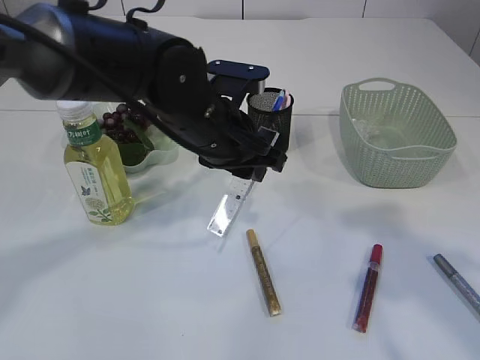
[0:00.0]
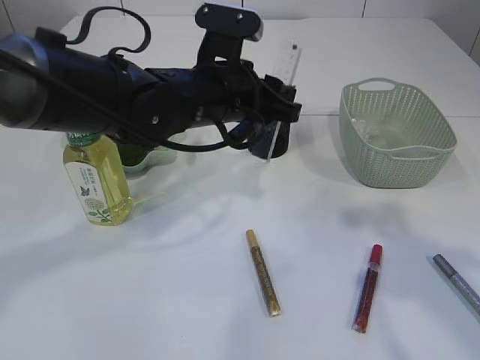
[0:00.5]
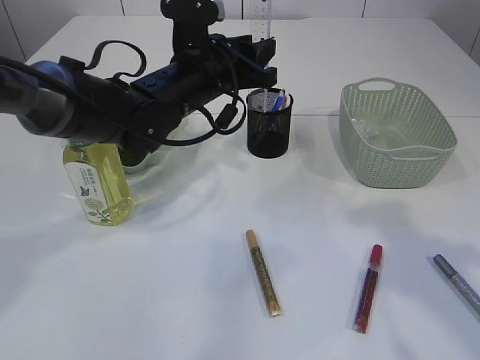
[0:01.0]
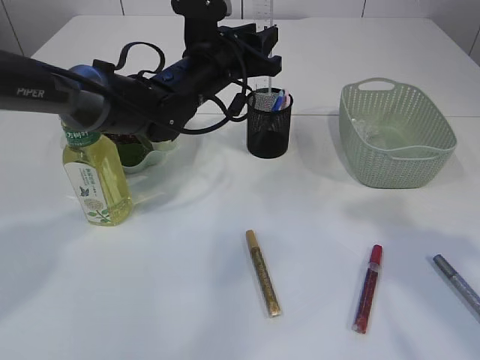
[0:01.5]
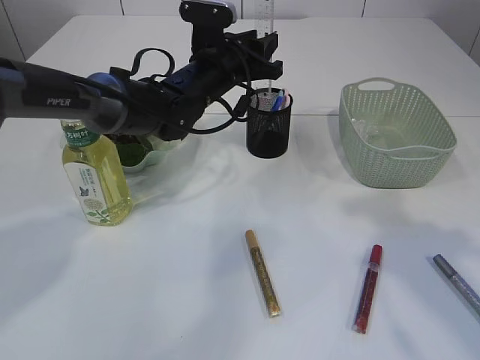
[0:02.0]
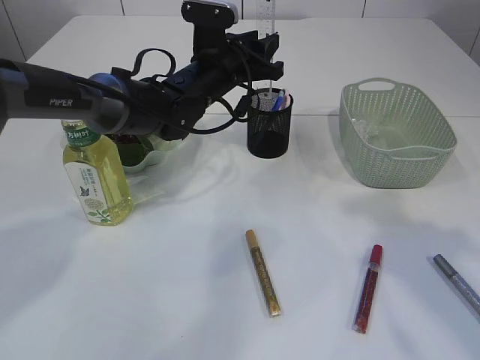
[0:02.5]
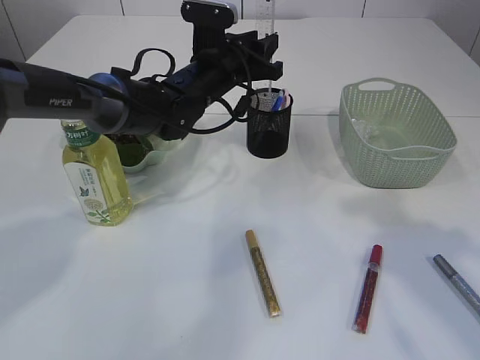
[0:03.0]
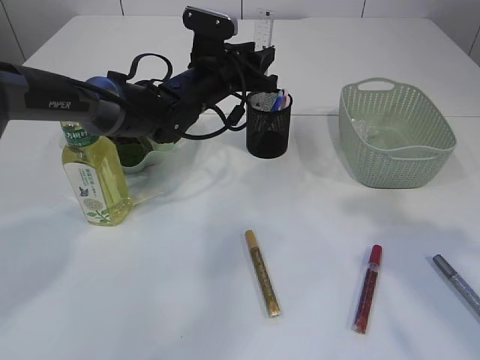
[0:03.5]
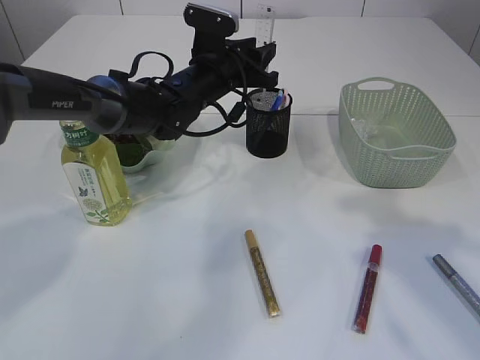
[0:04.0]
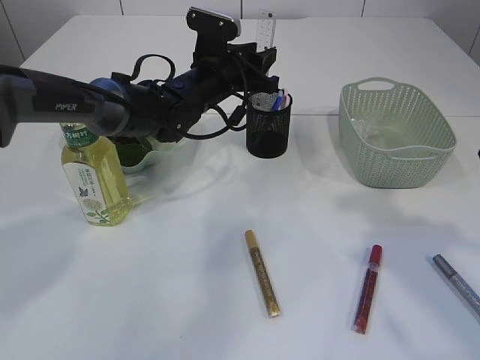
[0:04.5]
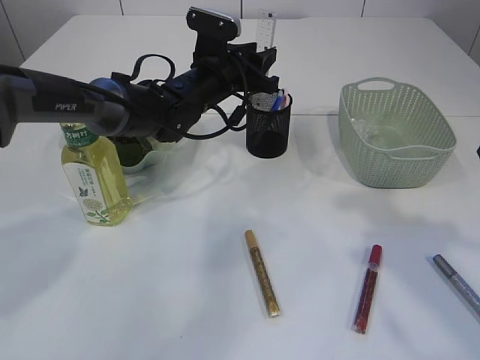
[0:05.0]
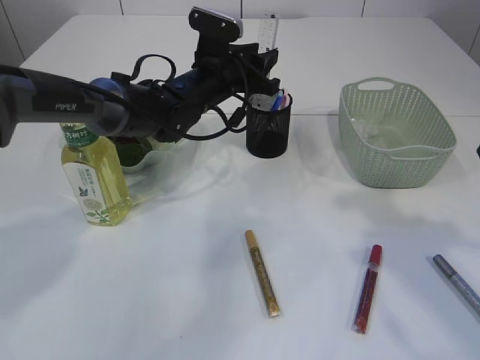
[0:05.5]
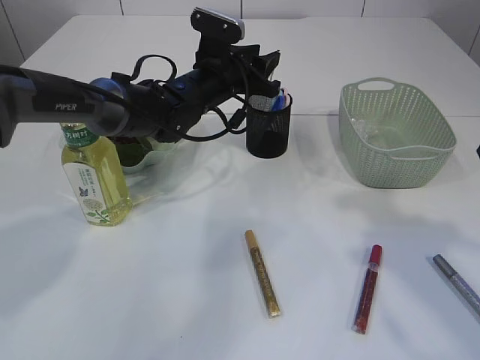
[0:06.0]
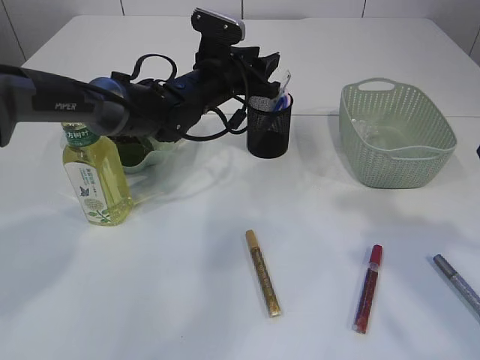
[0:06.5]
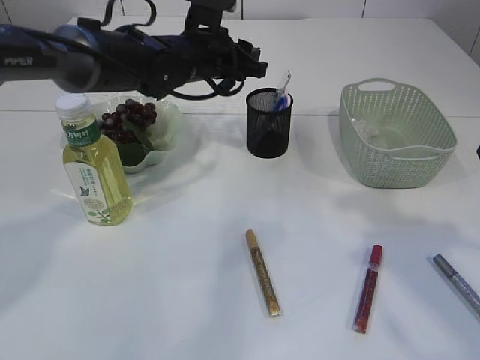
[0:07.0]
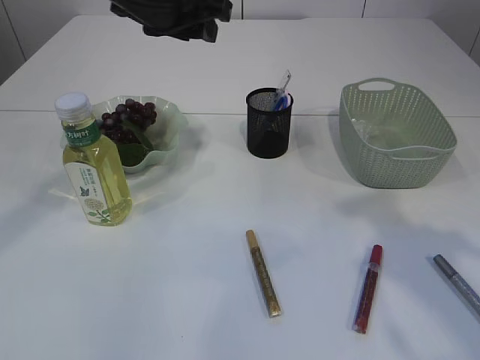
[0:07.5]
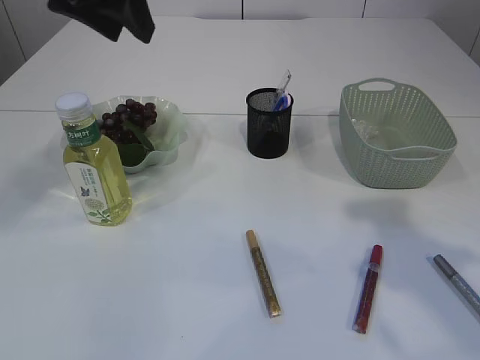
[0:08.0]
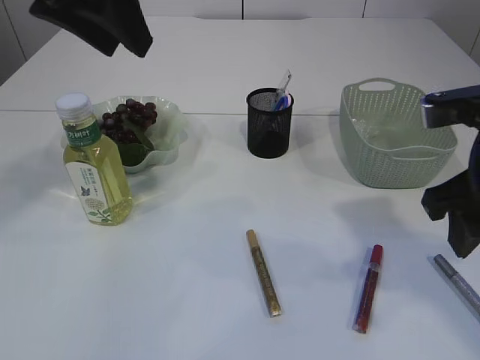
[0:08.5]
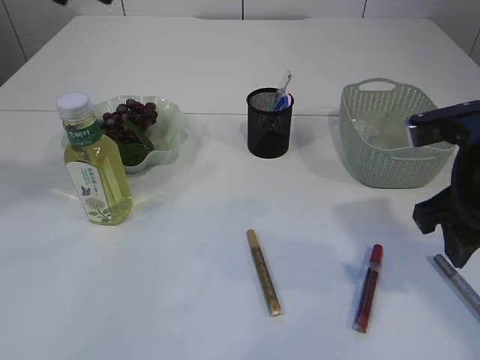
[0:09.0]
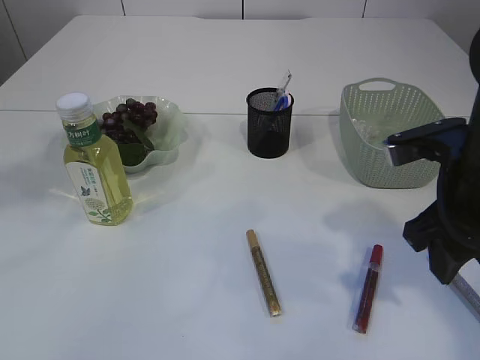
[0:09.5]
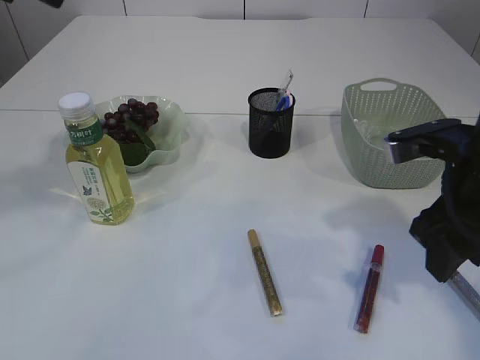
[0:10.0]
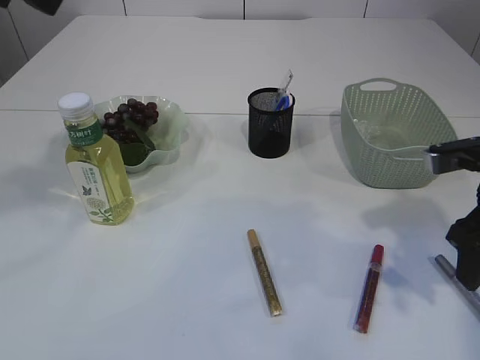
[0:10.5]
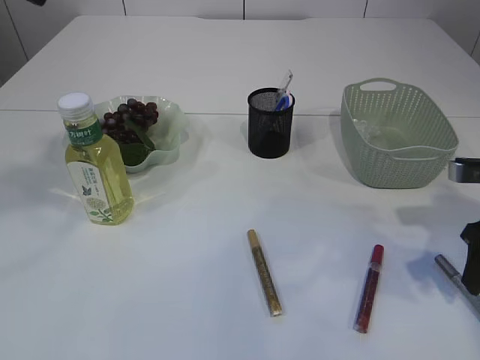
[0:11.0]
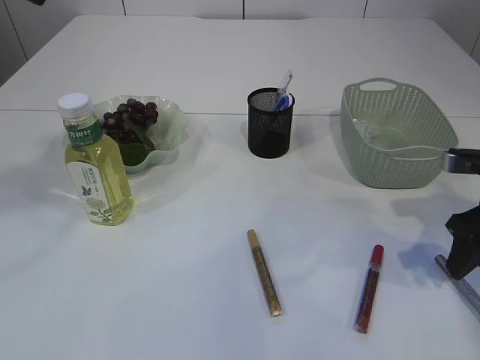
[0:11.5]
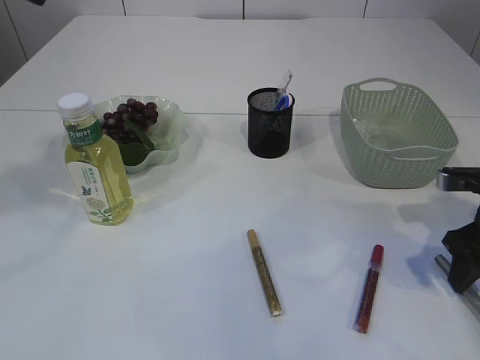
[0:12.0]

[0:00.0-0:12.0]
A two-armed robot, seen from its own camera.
Step, 0:00.0 to 0:06.5: Place the ruler into the pen holder.
0:00.0 to 0:02.0: The left gripper is displaced forward by approximately 10 cm.
0:02.0 to 0:04.0: The grippers move only a little.
0:04.0 to 0:06.0: Both grippers stay about where they are.
0:06.0 to 0:08.0: The left gripper goes approximately 30 cm upward, backward and to the left.
0:08.0 to 0:10.0: The left gripper heads backward and upward, covering approximately 10 cm; the right gripper moves downward and forward, approximately 10 cm.
0:10.0 to 0:12.0: The right gripper goes roughly 15 cm to the right and downward.

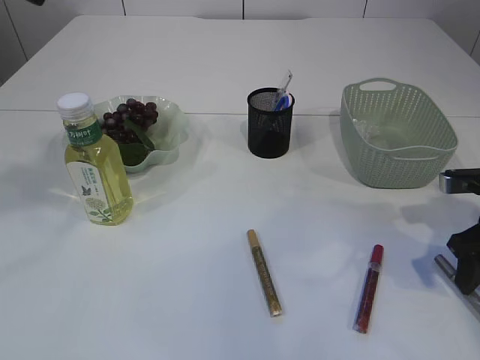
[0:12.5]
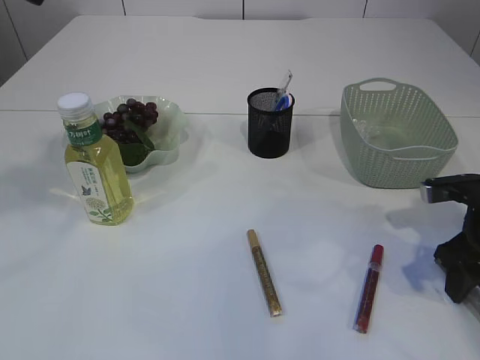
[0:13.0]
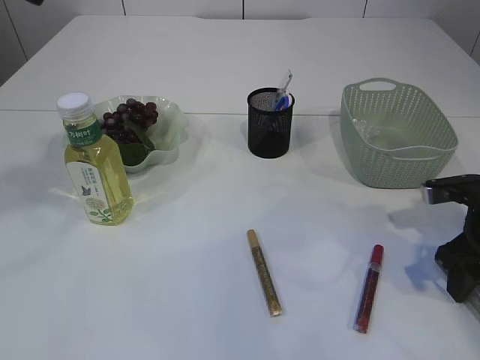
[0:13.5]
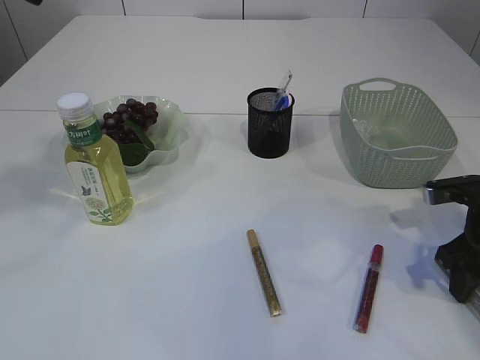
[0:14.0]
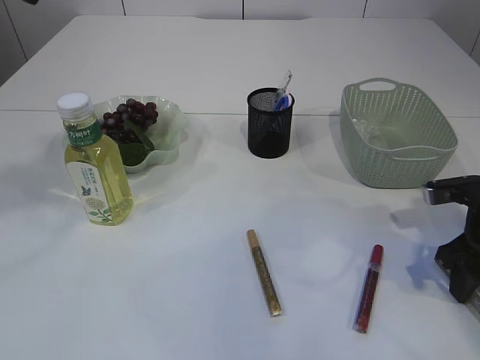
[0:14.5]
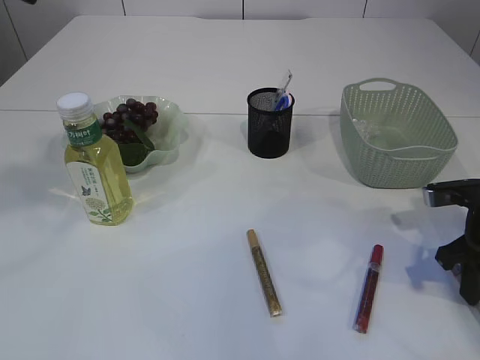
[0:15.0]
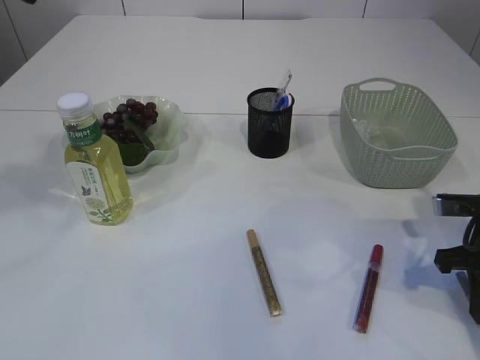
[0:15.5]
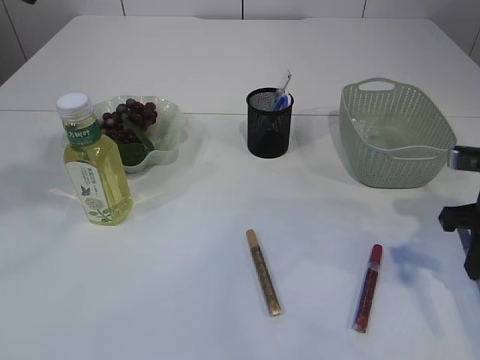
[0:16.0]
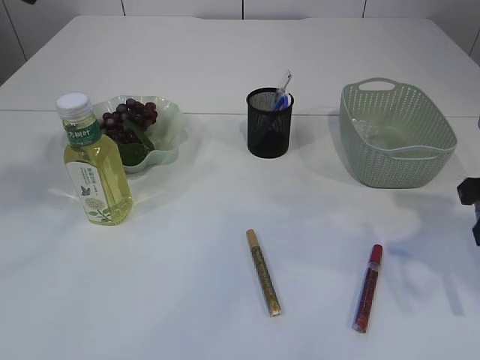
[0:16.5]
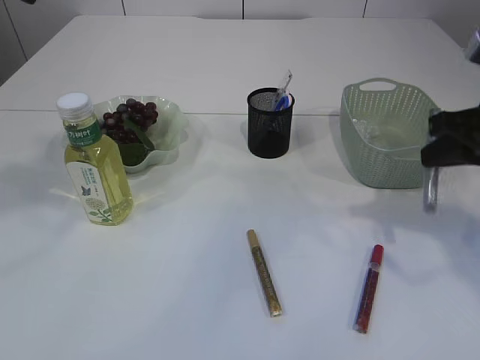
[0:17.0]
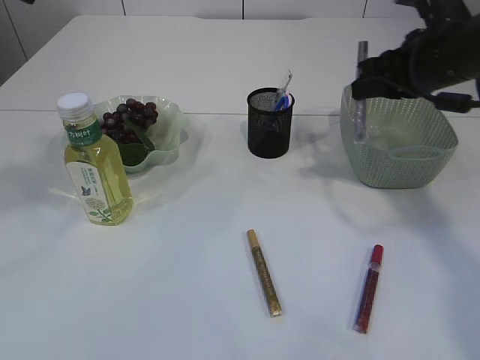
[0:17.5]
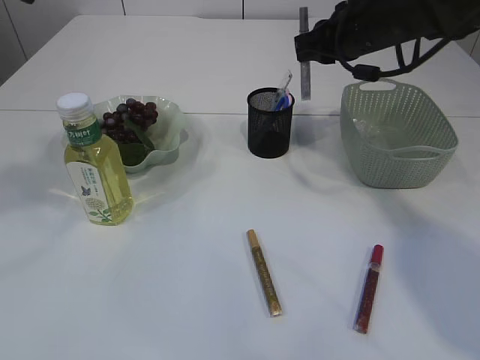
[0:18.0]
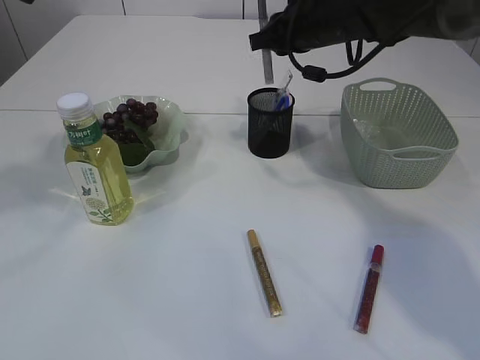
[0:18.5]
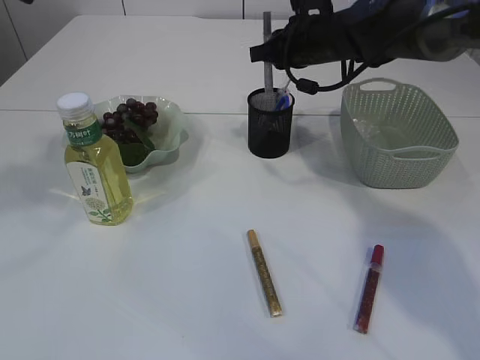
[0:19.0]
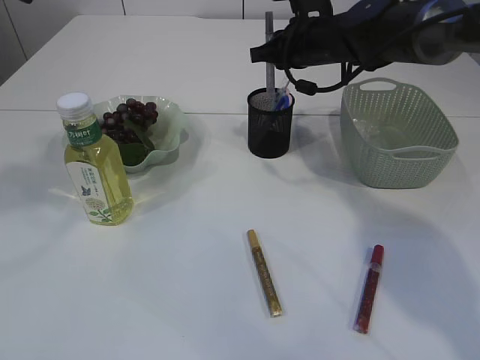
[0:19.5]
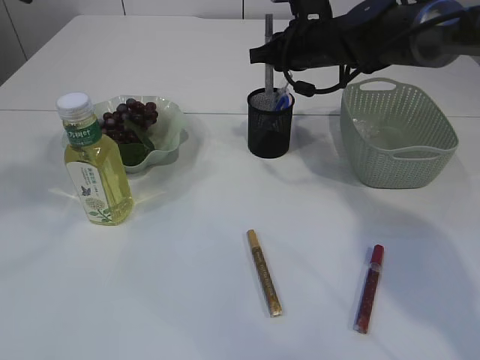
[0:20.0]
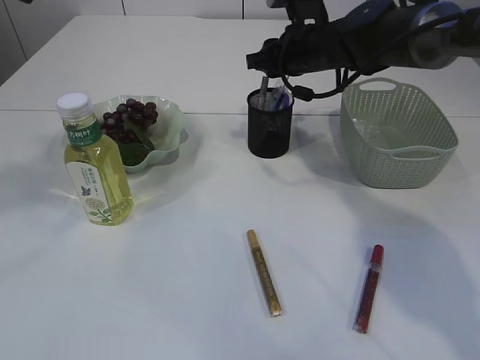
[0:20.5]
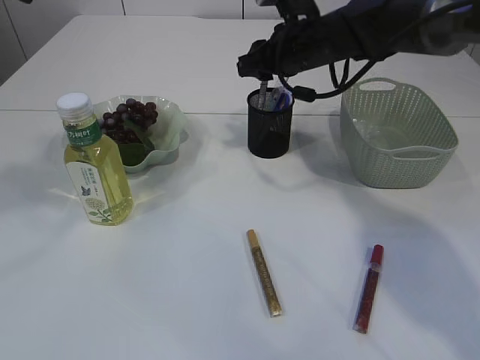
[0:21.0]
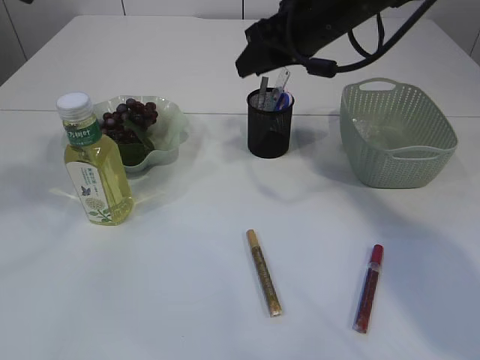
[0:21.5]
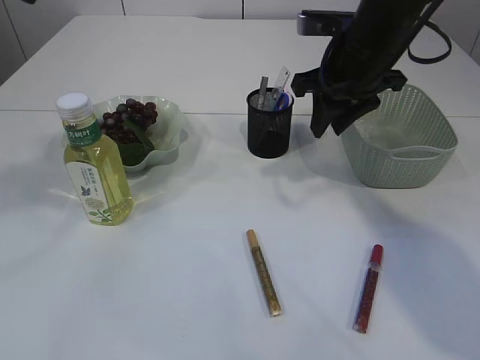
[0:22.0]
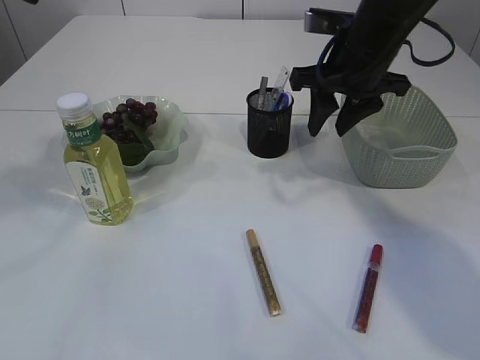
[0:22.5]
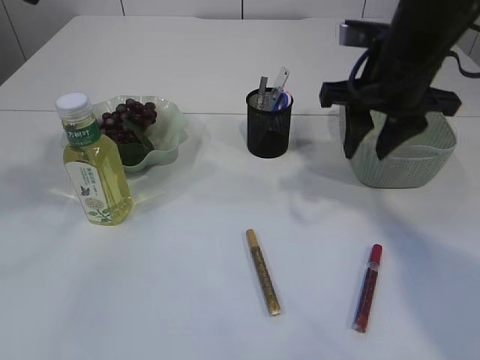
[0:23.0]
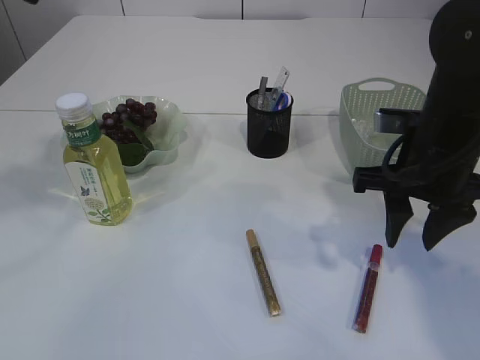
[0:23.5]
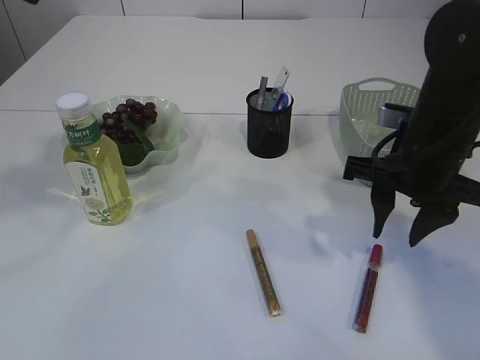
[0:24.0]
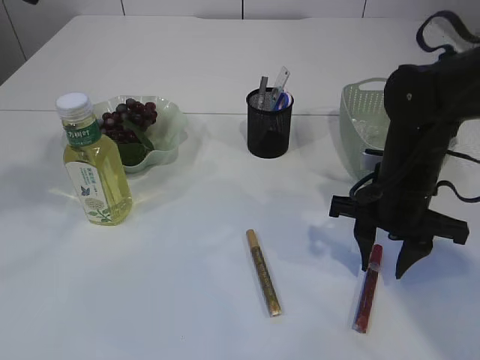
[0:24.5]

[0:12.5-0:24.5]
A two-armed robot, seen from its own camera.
Step, 0:12.5 to 0:16.0: pick up the silver glue.
Step, 0:16.5 to 0:20.0: place the silver glue into the pen holder.
0:12.5 to 0:14.5: The grippers move only a little.
0:14.5 to 0:16.5: The right gripper is displaced upward by some 10 cm, and closes its fingers.
0:16.5 to 0:18.5: The right gripper heads forward and to the left, covering some 30 cm.
0:18.5 to 0:20.5: The right gripper opens its fingers.
0:20.5 to 0:22.5: The right gripper heads backward, covering roughly 10 cm.
0:22.5 to 0:24.5: The right gripper moves downward and backward, roughly 15 cm.

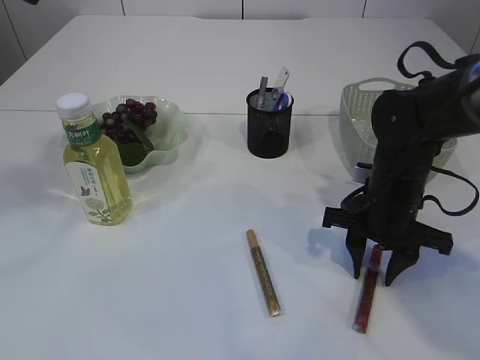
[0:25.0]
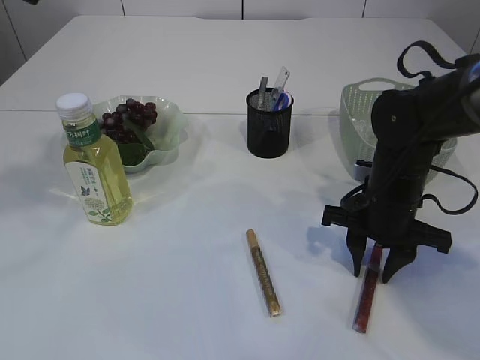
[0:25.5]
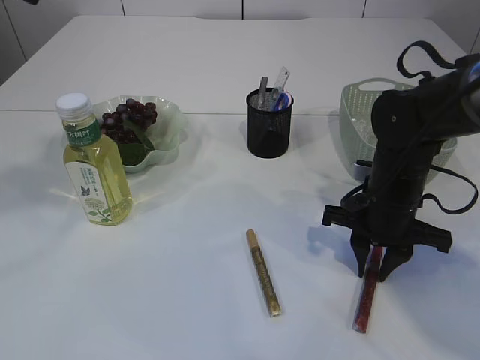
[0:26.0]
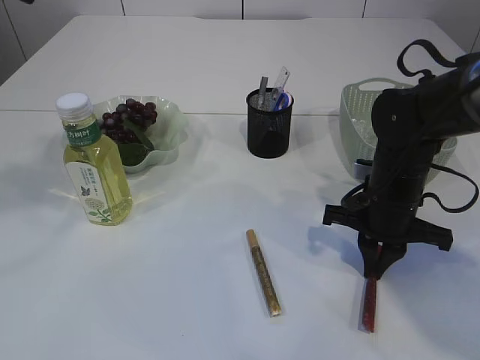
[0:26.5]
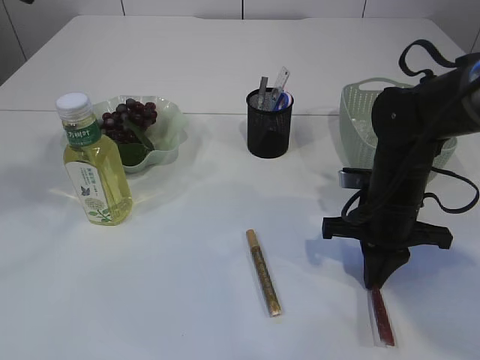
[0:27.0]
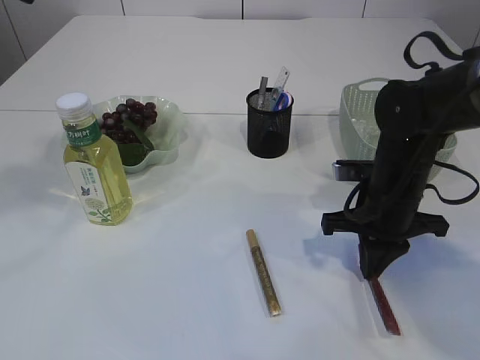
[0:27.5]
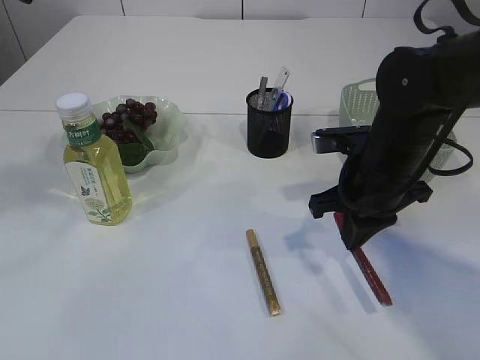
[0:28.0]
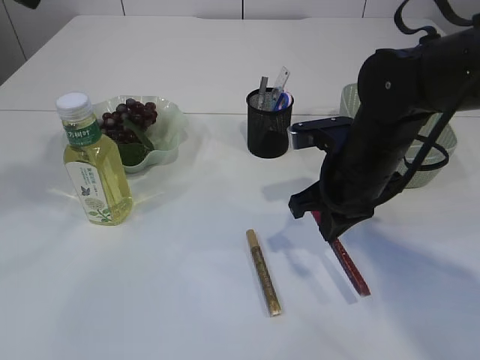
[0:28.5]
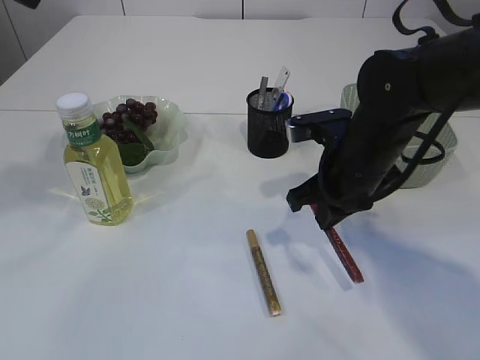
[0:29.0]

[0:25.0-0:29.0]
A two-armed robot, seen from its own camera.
Step, 0:25.0 to 0:28.0: pick up the red glue.
0:25.0 to 0:27.0: The right gripper closes up.
0:27.0 to 0:29.0: The right gripper moves upward, approximately 5 cm.
